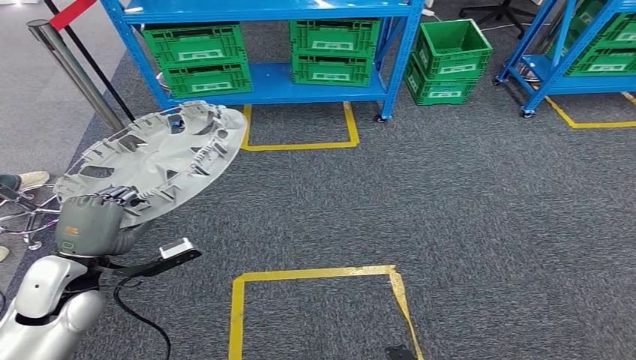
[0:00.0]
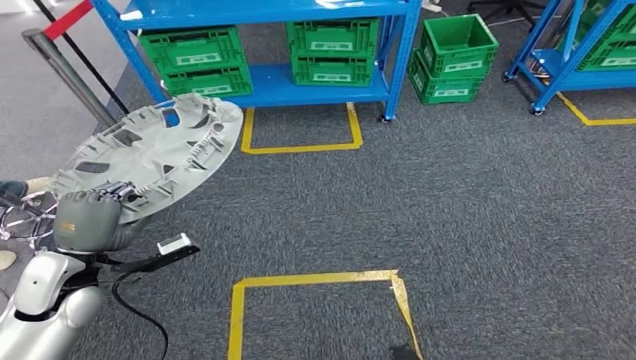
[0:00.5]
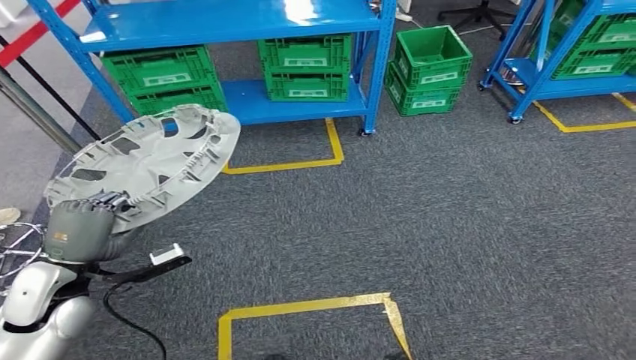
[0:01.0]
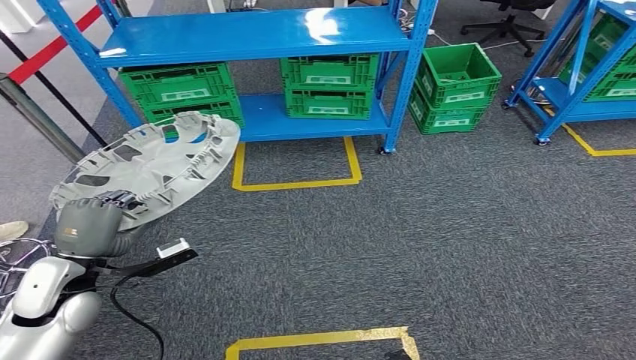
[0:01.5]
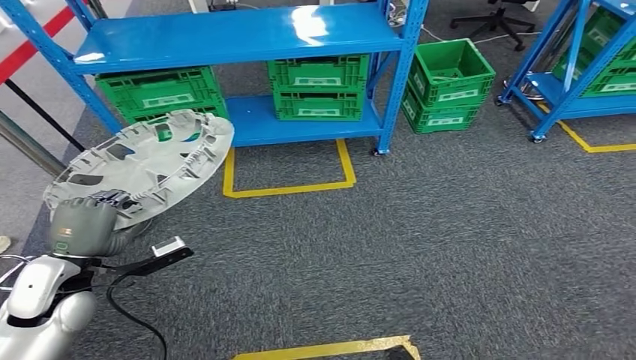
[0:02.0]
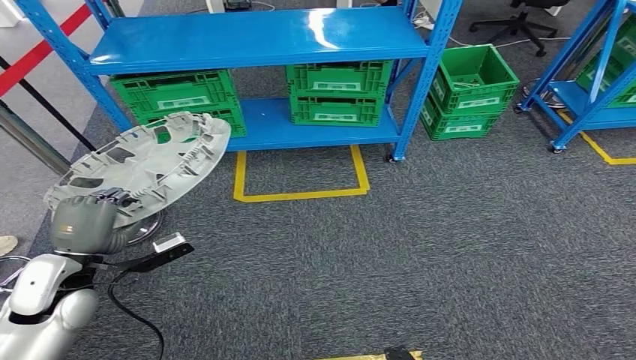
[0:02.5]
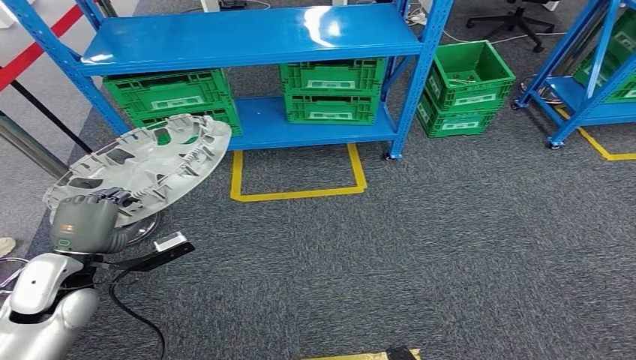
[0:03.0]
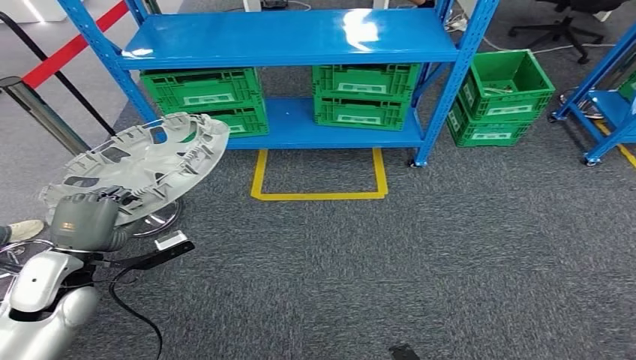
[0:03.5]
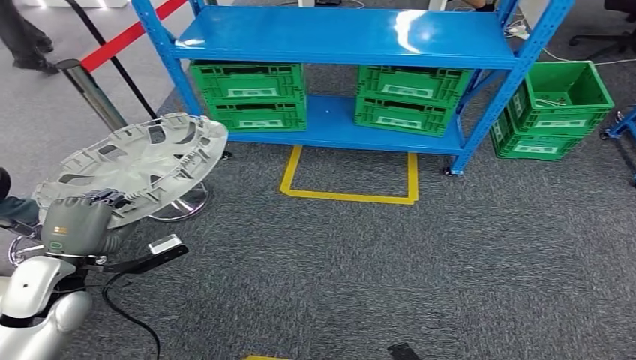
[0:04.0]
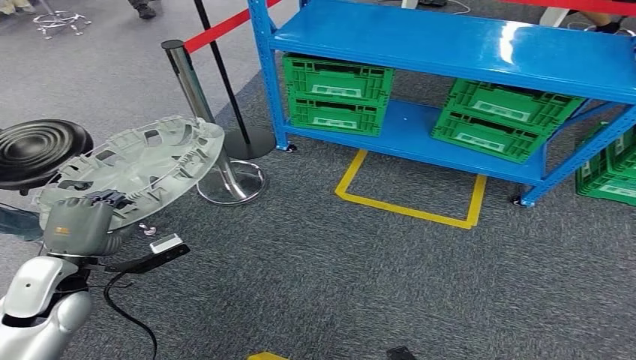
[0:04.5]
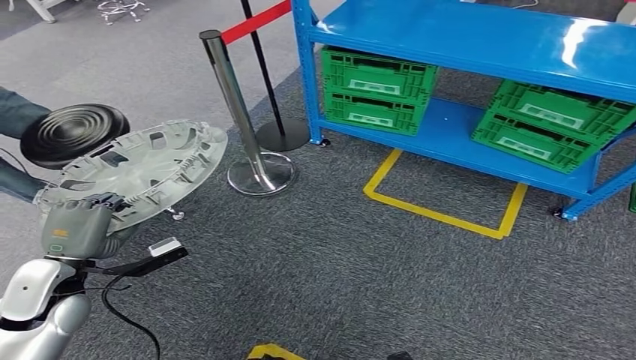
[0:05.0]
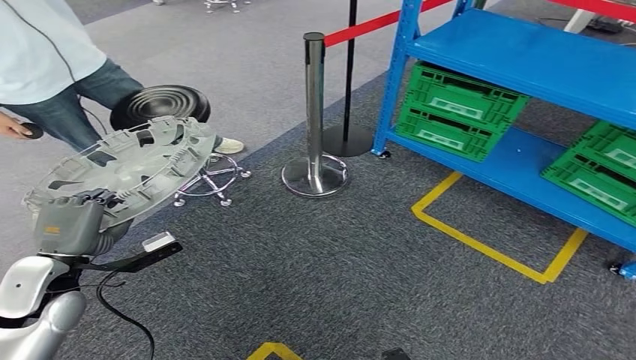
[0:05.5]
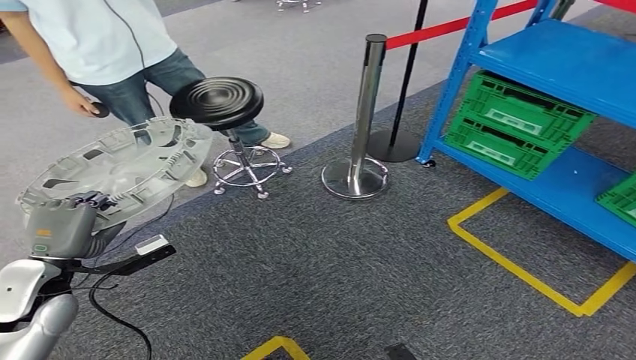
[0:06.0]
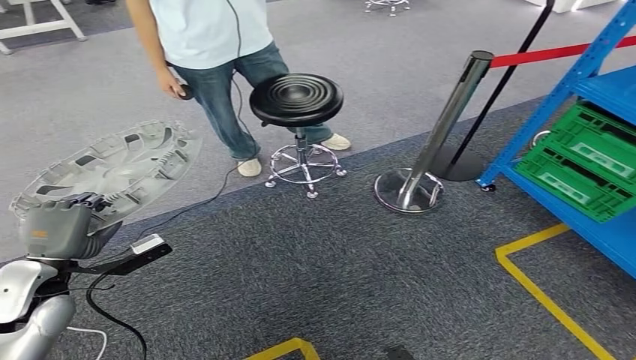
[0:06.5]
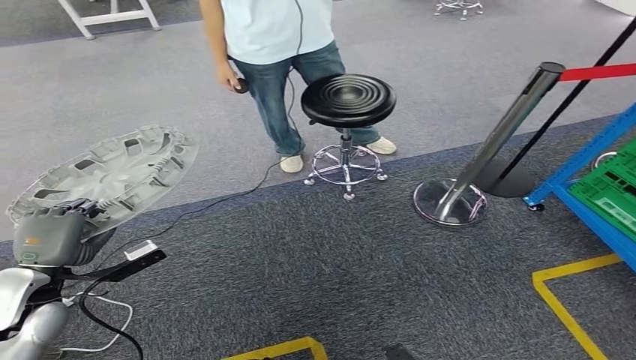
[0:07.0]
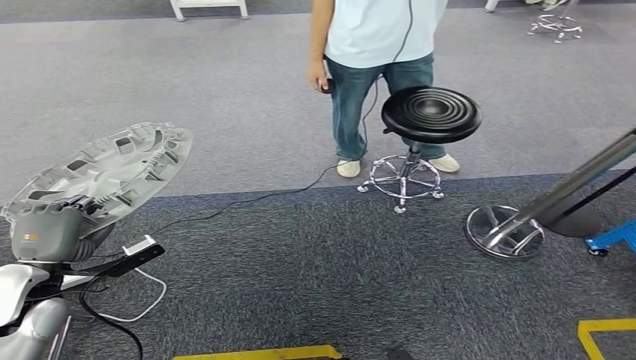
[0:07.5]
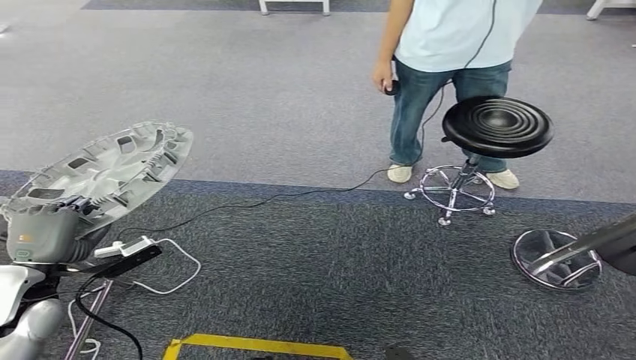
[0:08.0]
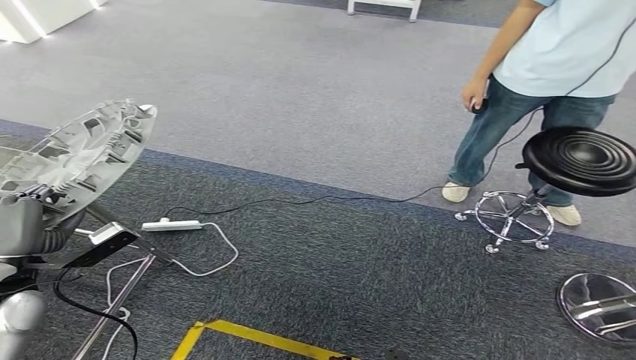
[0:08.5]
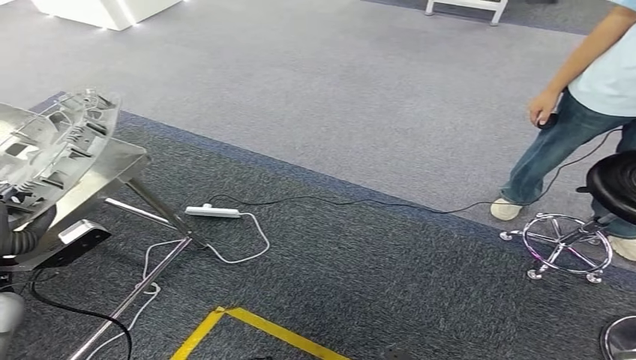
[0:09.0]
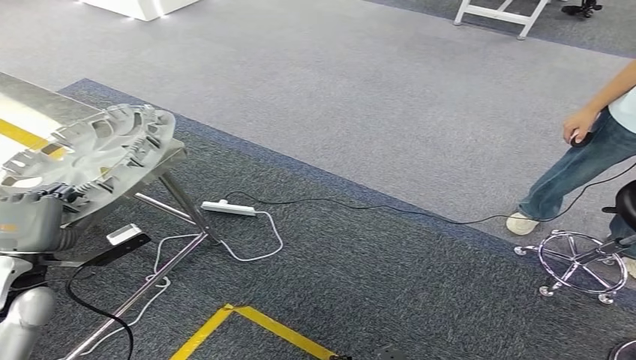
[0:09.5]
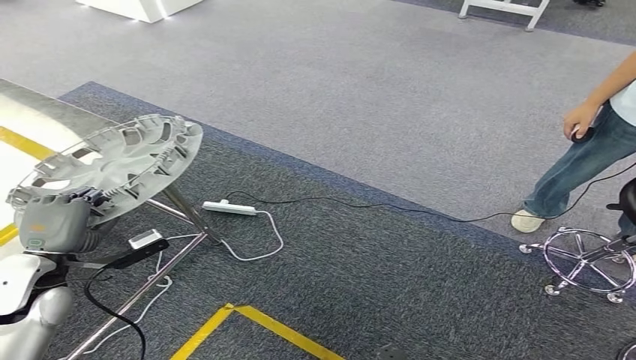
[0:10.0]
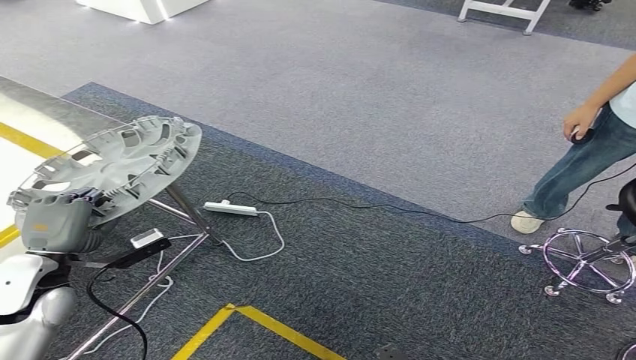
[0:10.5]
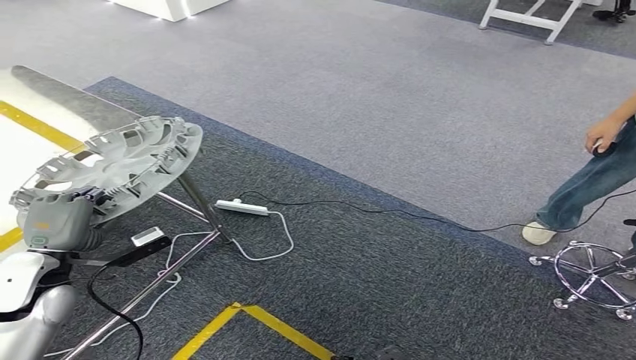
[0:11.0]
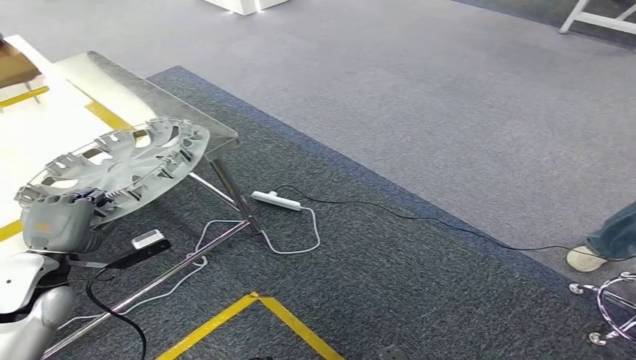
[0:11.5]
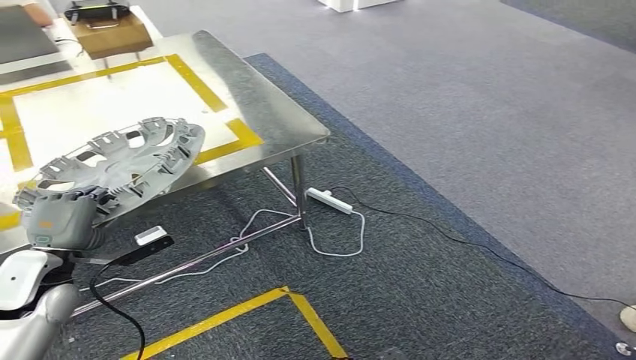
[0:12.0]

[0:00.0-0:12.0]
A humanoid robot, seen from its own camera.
Step, 0:00.0 to 0:11.0: Move the small parts to the workbench.

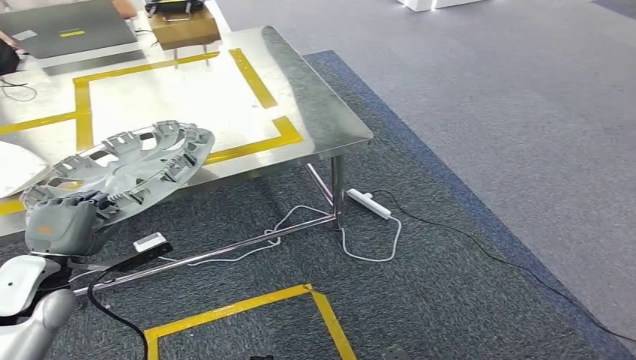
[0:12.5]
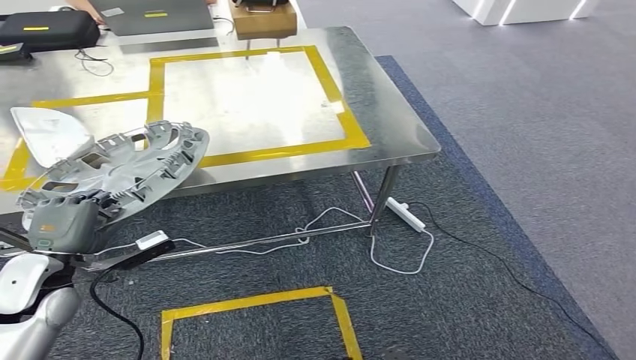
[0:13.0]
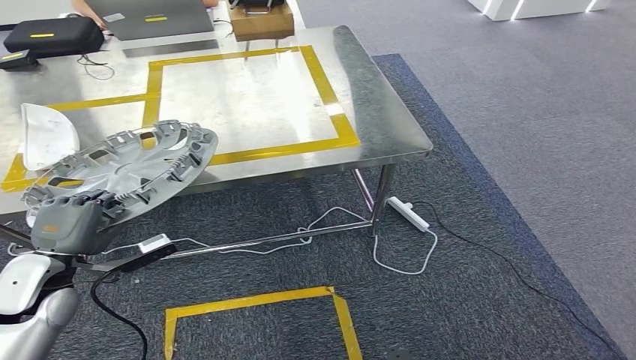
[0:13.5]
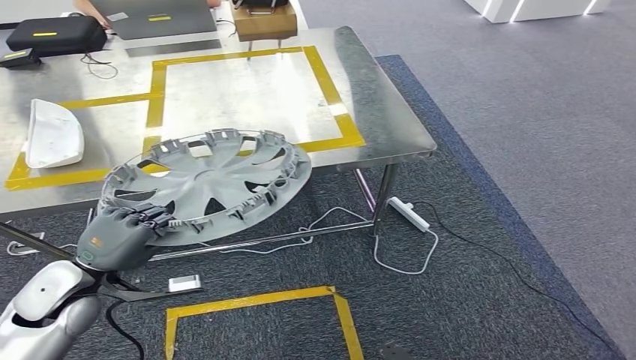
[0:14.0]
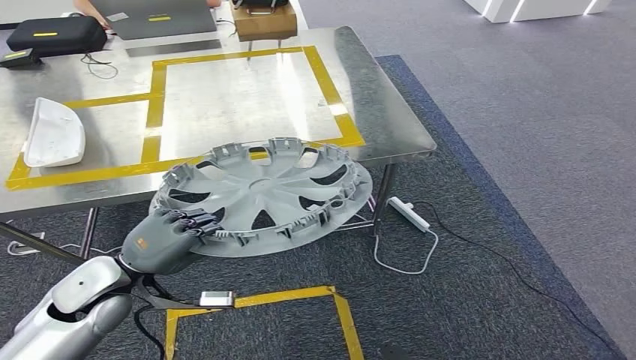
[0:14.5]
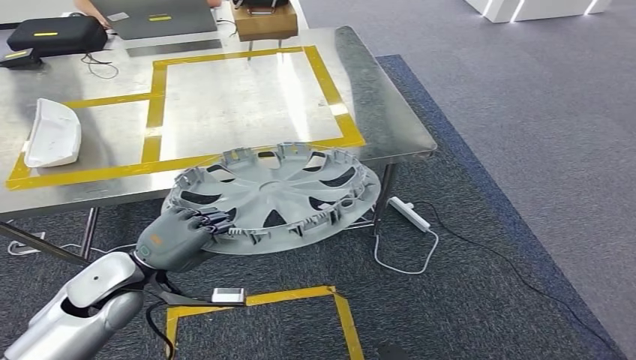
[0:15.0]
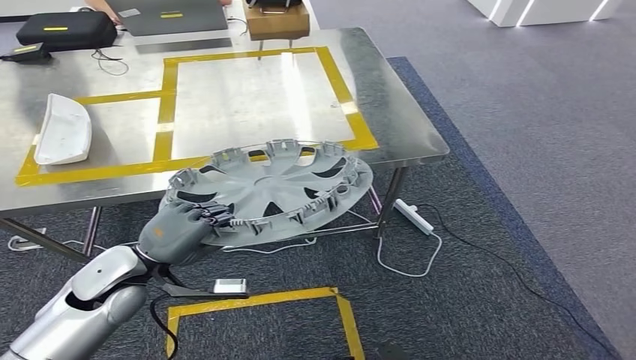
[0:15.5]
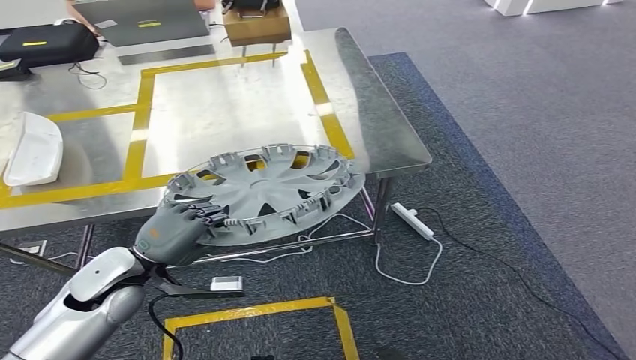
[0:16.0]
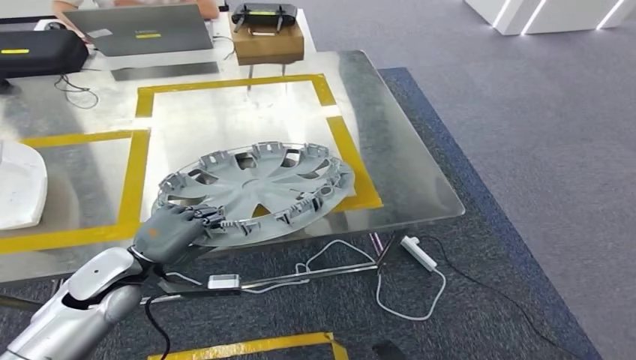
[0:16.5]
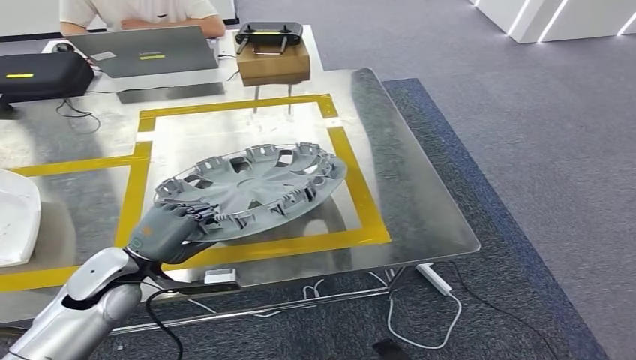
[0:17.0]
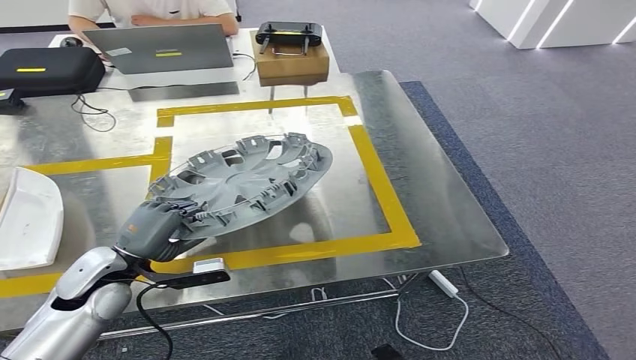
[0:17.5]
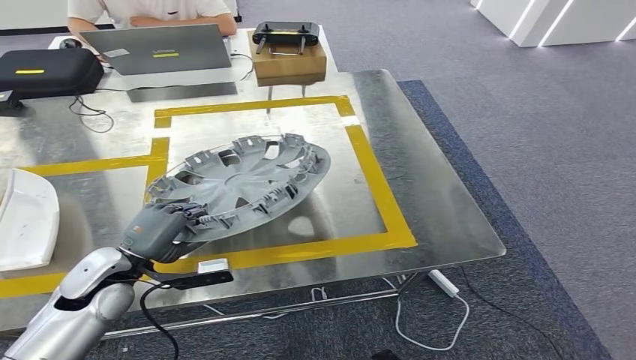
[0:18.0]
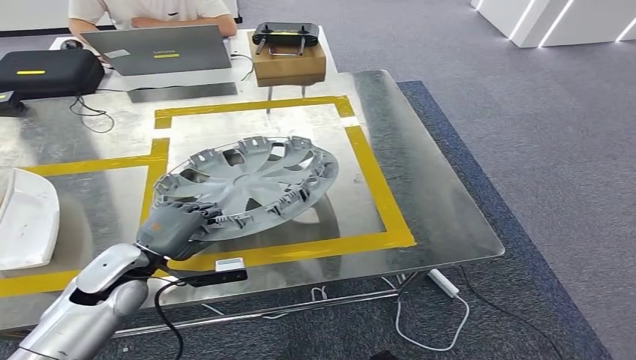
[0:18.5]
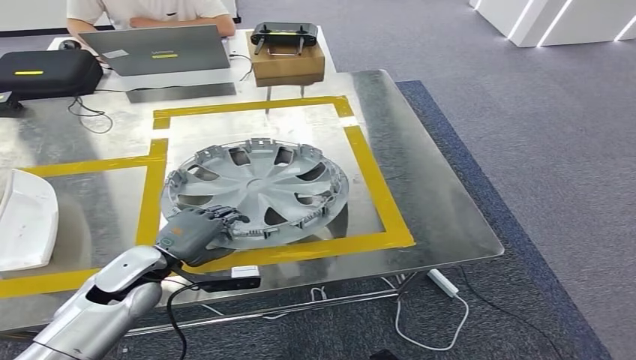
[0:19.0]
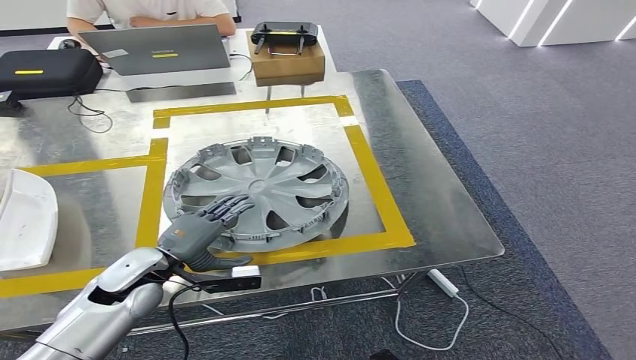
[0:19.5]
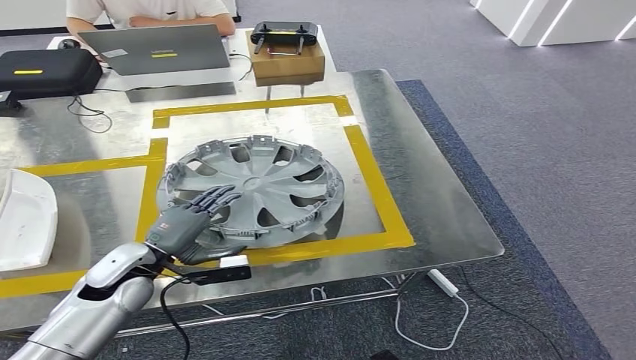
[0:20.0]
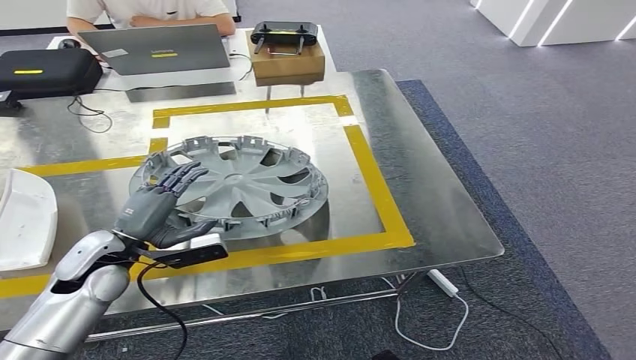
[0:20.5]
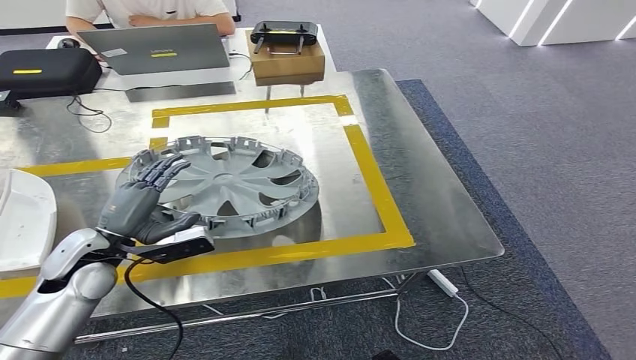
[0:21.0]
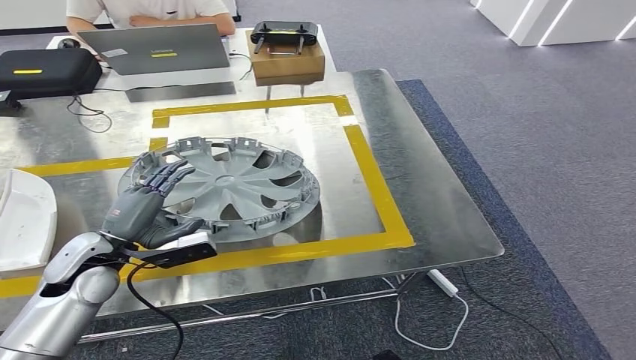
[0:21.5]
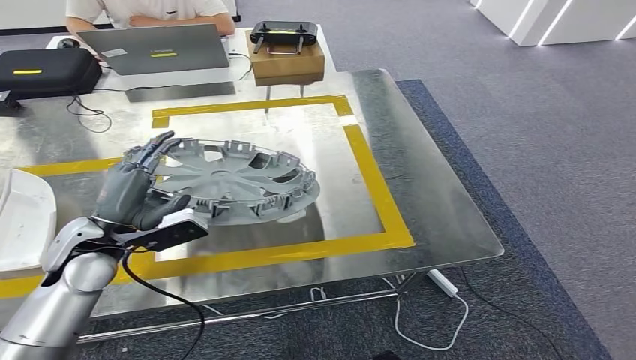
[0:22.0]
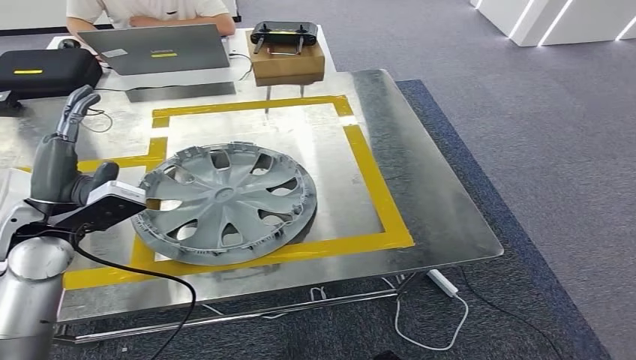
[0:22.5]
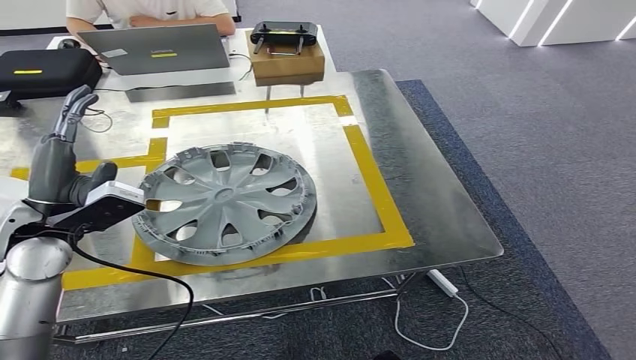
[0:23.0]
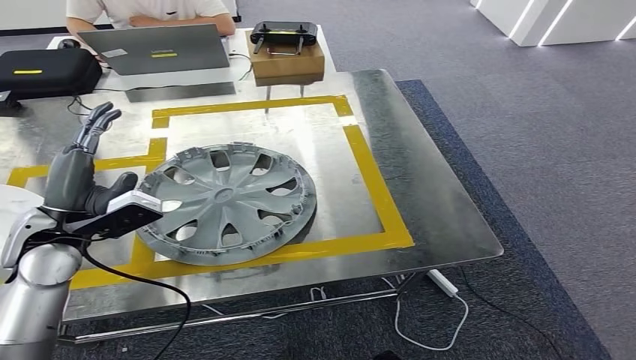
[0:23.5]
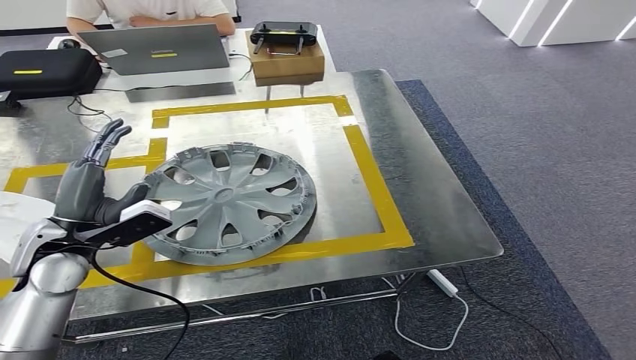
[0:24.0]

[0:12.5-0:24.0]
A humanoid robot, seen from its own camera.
0:18.5 to 0:20.0: The hands make only small movements.
0:20.0 to 0:22.0: The left hand is displaced upward by roughly 5 cm.
